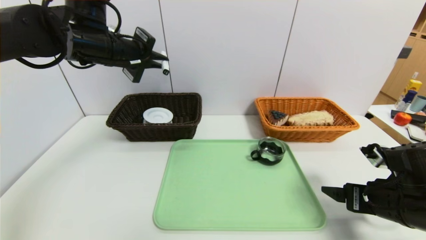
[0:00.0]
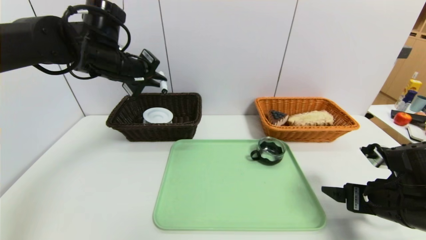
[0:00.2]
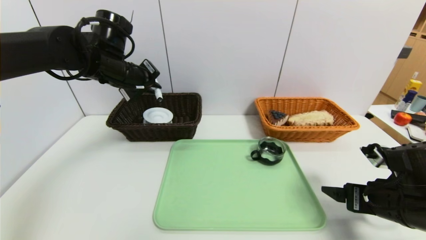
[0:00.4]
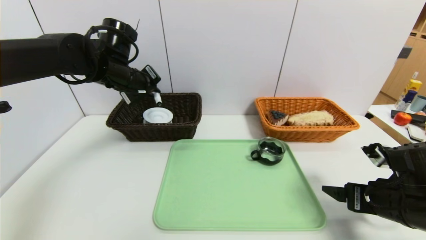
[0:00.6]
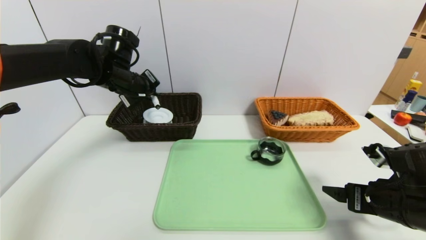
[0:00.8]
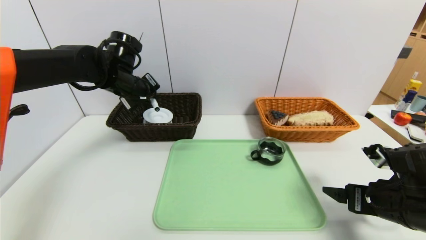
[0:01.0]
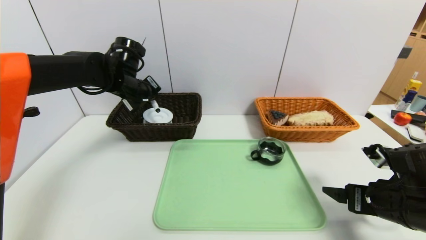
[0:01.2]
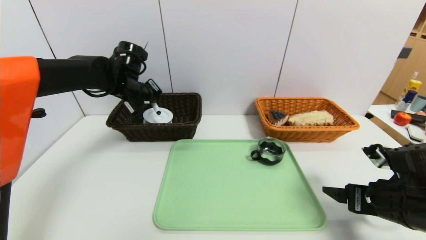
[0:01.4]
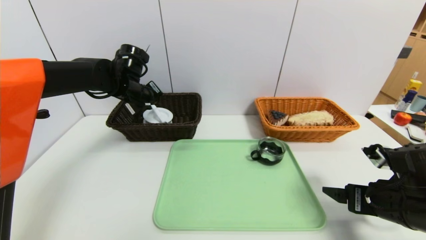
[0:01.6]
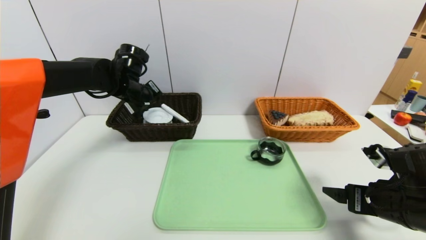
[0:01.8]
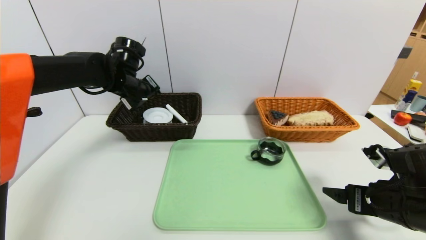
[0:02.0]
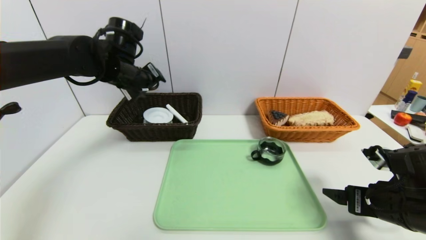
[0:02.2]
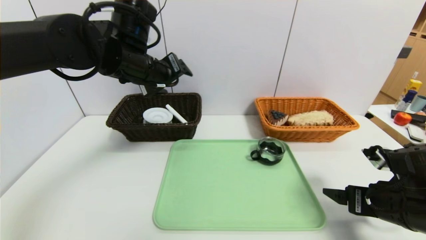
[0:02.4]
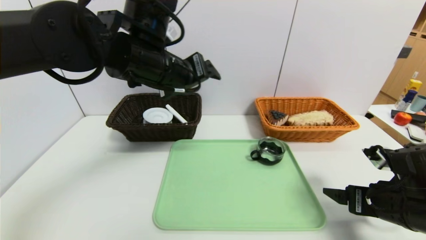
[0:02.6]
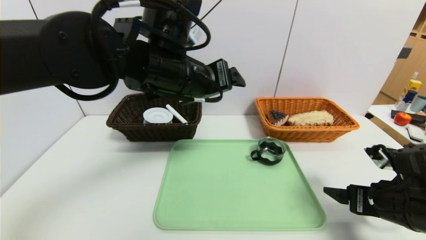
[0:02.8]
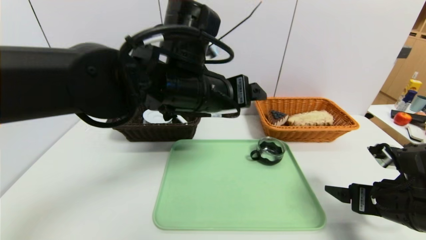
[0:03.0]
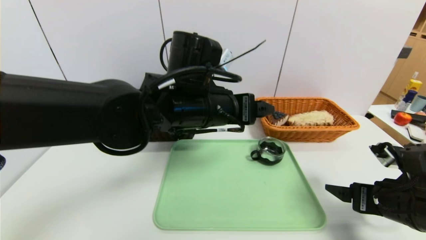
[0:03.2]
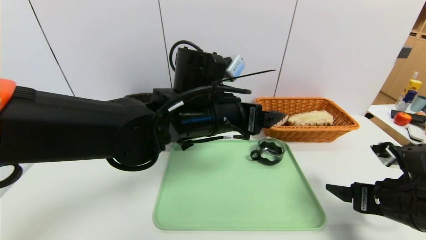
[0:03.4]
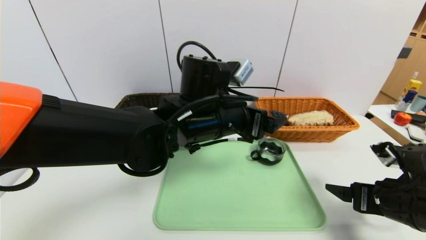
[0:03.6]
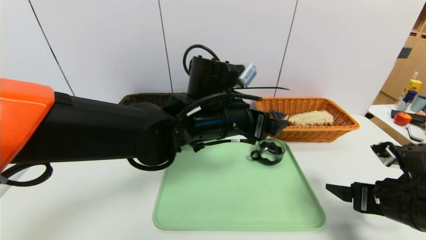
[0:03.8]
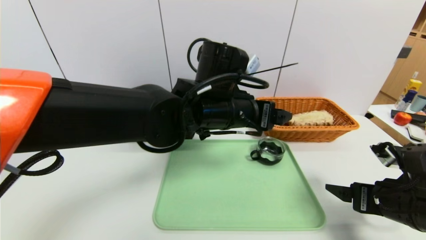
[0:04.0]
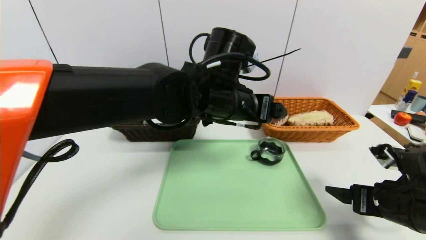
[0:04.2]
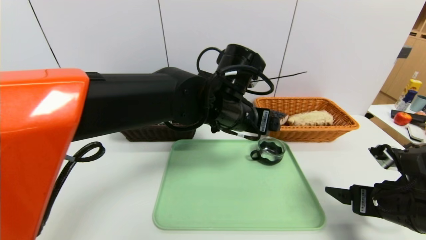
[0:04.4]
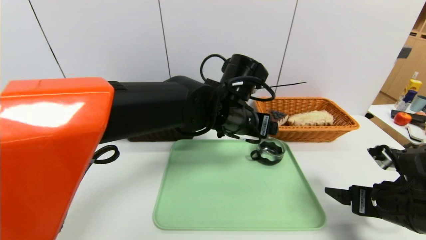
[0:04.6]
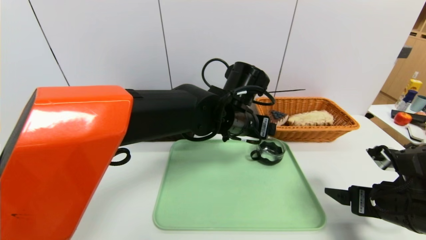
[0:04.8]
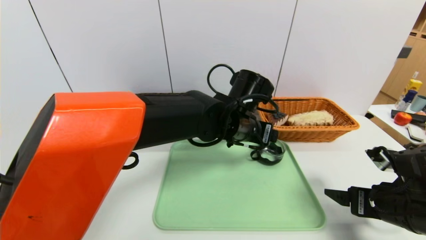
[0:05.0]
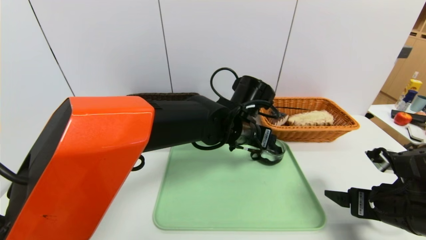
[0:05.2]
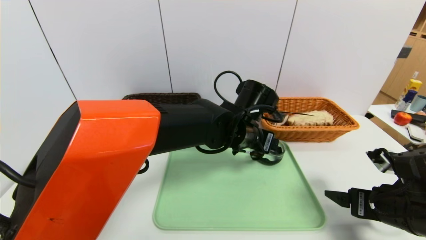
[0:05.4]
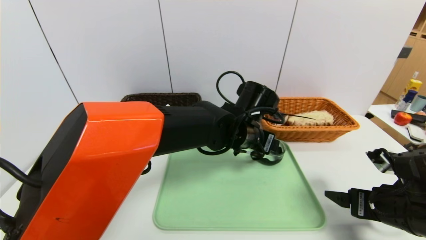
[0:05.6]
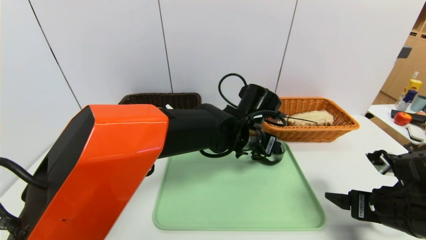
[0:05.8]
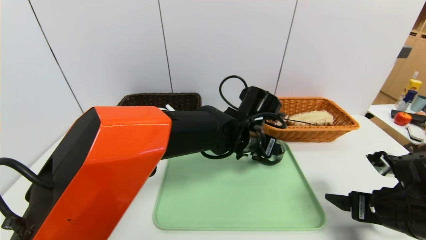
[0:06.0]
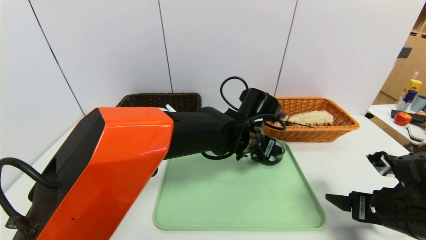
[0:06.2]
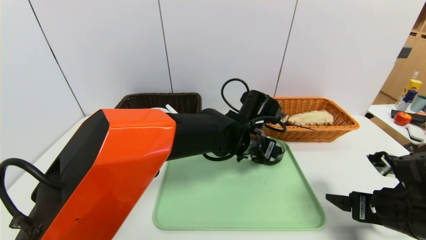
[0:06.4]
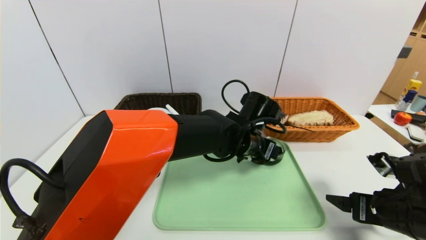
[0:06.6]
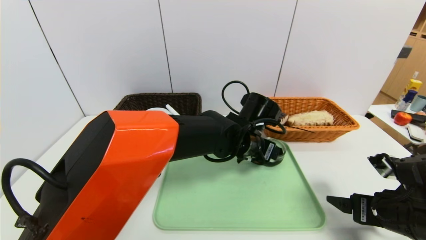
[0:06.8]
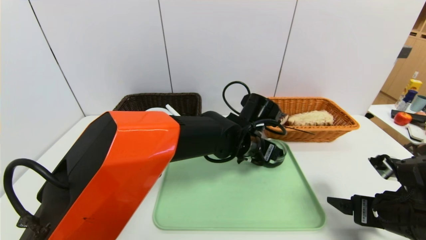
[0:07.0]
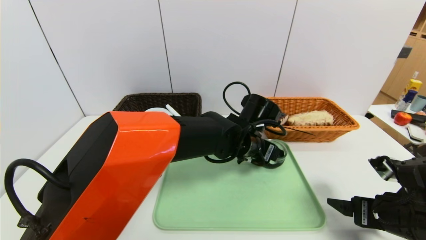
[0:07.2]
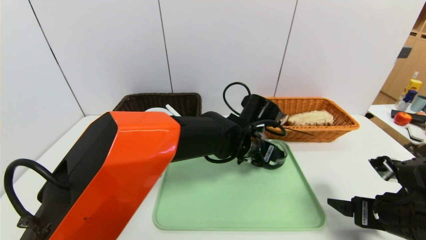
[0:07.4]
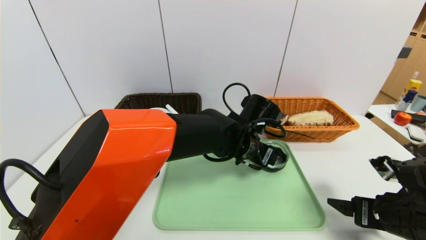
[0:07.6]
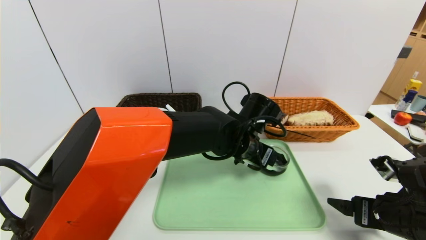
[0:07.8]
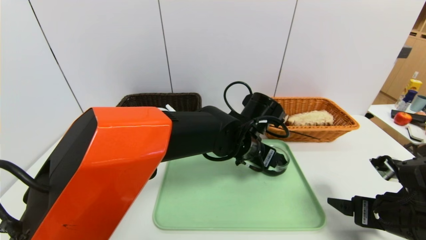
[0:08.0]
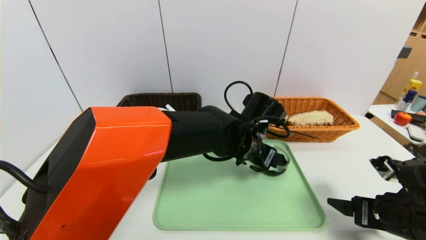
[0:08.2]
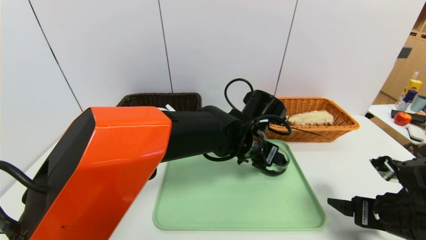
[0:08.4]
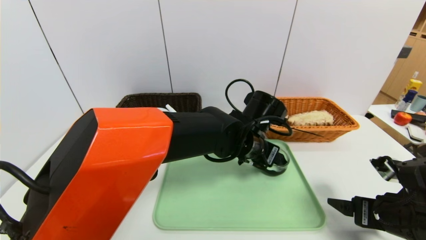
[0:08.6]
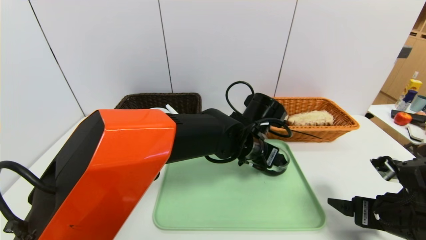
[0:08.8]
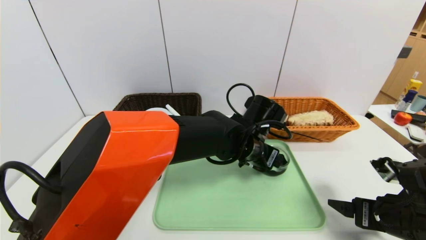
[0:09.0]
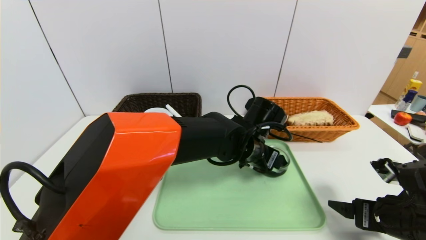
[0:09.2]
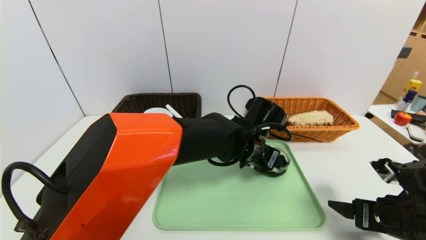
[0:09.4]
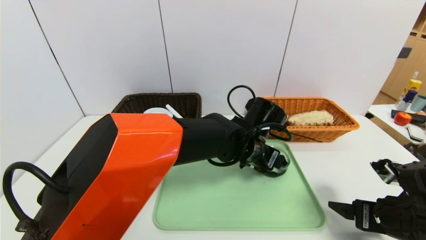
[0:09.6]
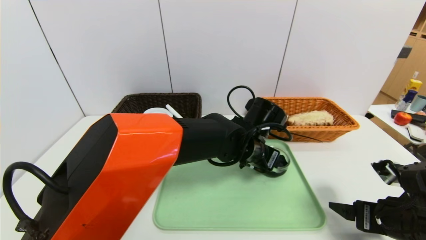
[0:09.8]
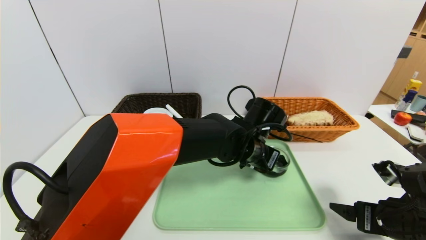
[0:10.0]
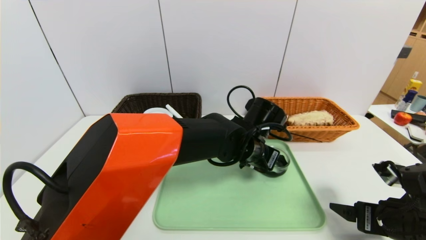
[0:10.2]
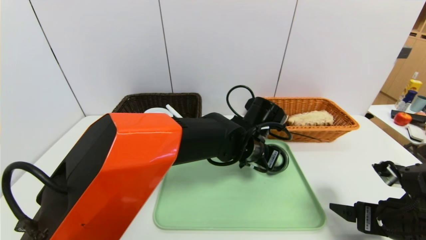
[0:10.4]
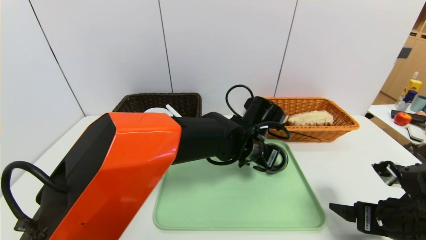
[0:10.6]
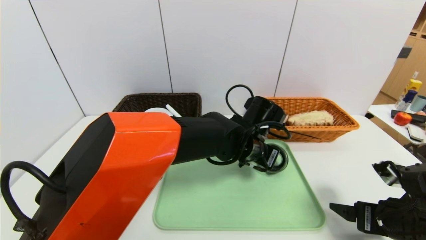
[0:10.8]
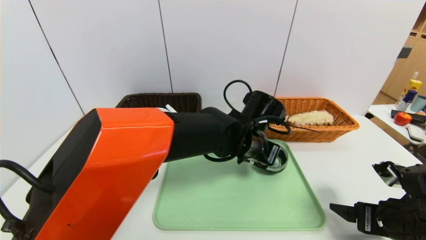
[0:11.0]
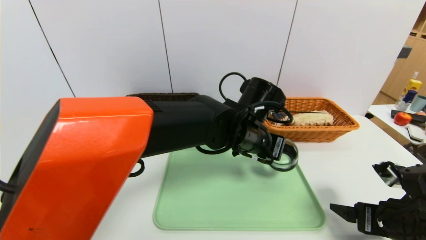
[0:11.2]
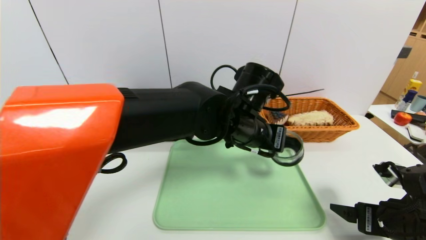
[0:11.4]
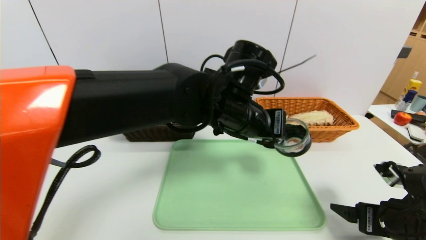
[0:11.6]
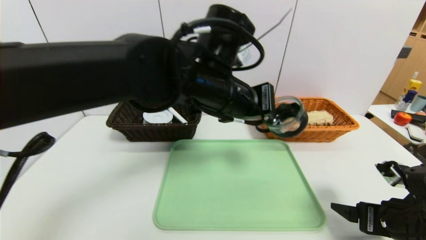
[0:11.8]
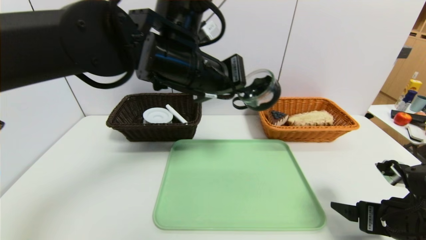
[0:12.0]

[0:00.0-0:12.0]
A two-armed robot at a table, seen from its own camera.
Task of the whole recording: place the food in the right basket with the right gripper, and place the non food items in the left basket with the left gripper.
Step, 0:00.0 to 0:02.4: Grasp the blue marker and put it in the left basket.
0:00.0 to 0:01.6: The left gripper heads downward and forward, covering some 10 cm.
0:01.6 to 0:03.0: The left gripper travels to the right and backward by approximately 25 cm, and opens.
0:03.0 to 0:04.4: The left gripper goes roughly 5 cm to the right.
0:04.4 to 0:06.0: The left gripper is displaced downward by some 5 cm.
0:06.0 to 0:07.6: The grippers move only a little.
0:07.6 to 0:09.0: Neither gripper changes place.
0:09.0 to 0:10.4: The left gripper closes.
0:10.4 to 0:12.0: The left gripper goes some 20 cm upward and to the left.

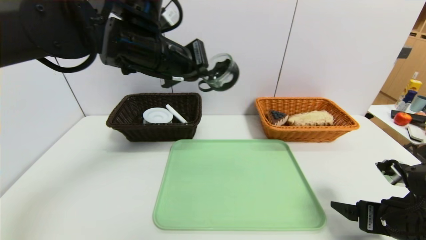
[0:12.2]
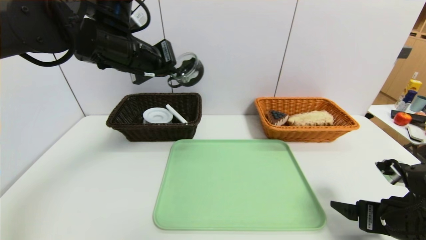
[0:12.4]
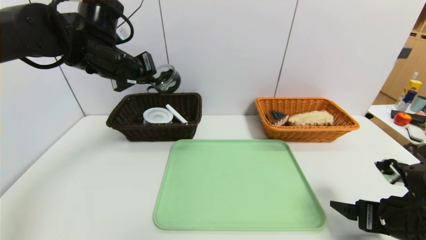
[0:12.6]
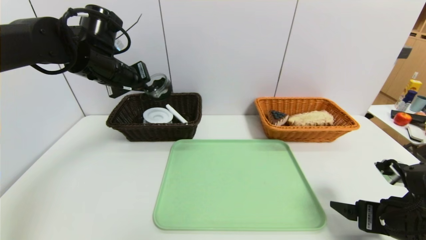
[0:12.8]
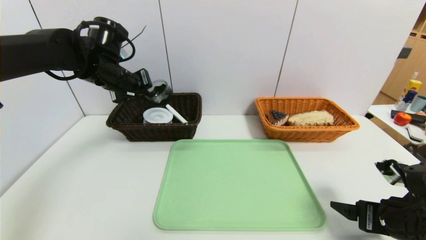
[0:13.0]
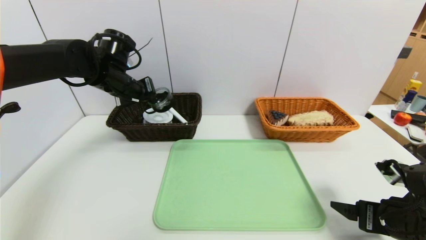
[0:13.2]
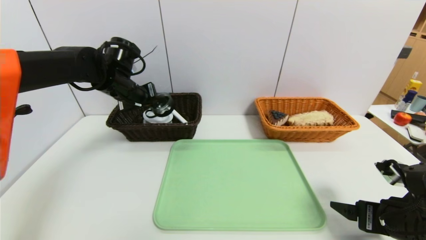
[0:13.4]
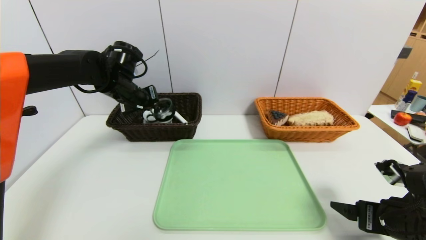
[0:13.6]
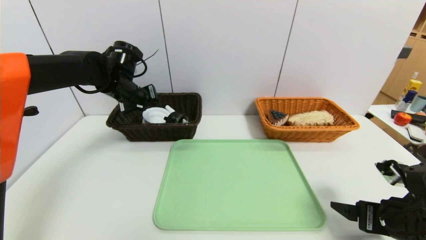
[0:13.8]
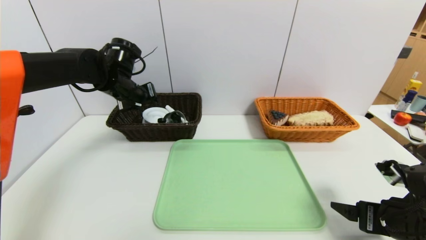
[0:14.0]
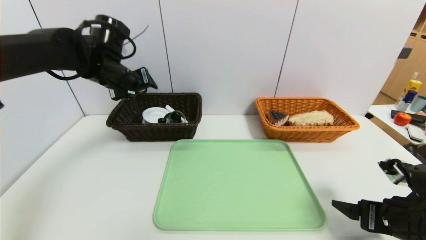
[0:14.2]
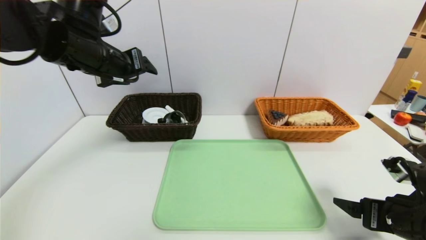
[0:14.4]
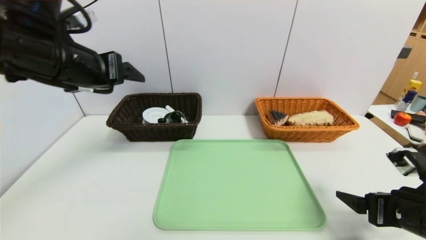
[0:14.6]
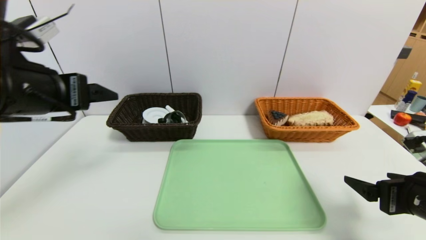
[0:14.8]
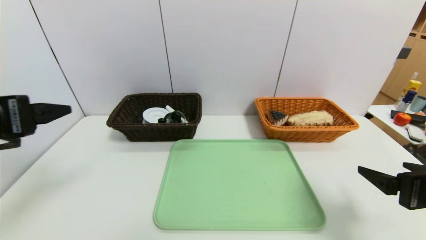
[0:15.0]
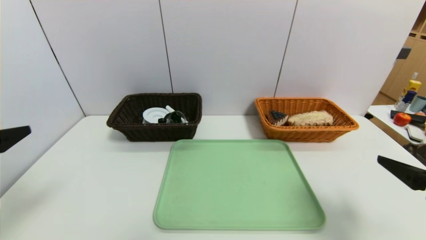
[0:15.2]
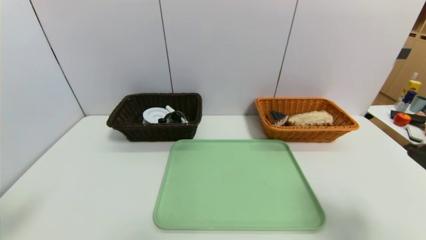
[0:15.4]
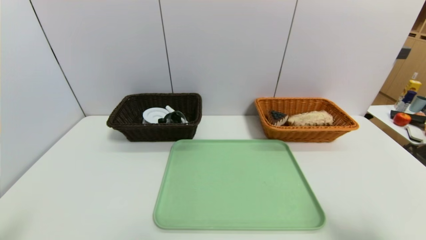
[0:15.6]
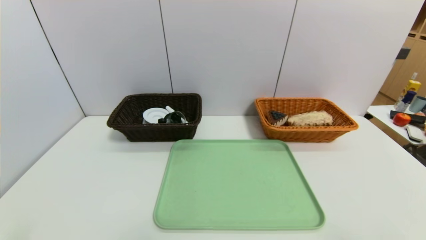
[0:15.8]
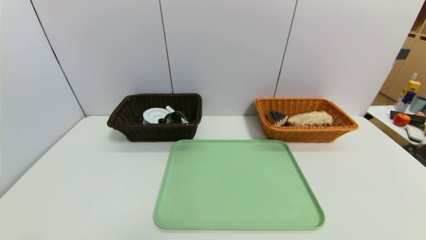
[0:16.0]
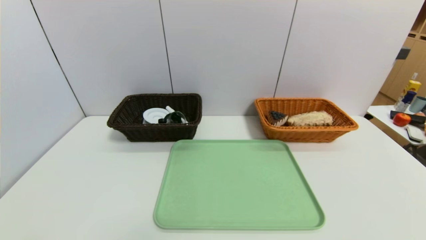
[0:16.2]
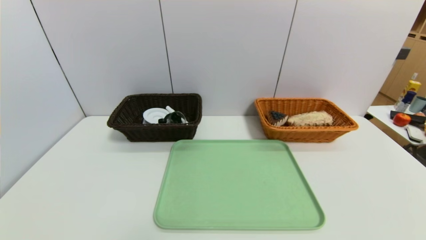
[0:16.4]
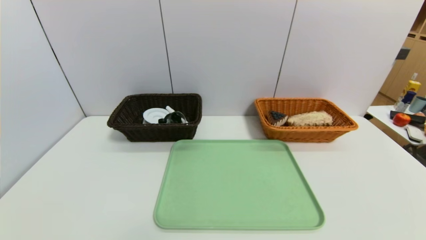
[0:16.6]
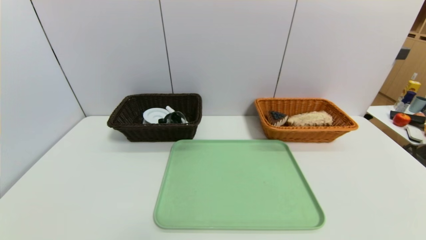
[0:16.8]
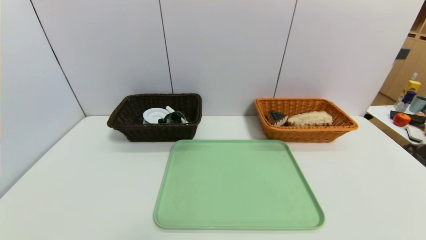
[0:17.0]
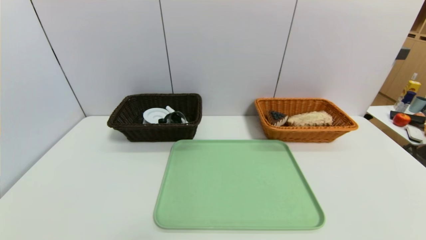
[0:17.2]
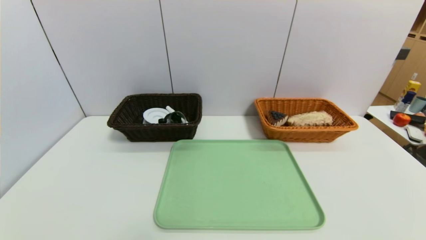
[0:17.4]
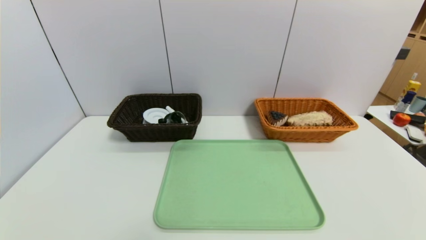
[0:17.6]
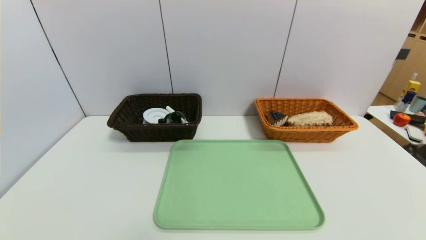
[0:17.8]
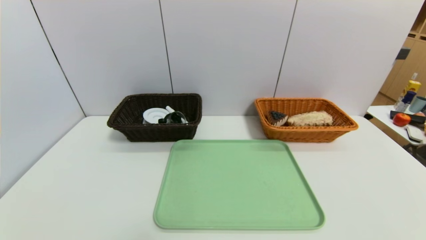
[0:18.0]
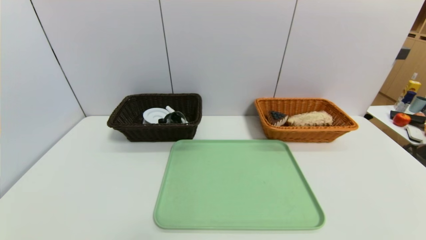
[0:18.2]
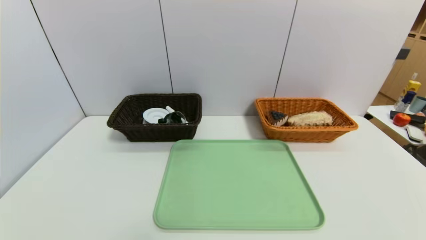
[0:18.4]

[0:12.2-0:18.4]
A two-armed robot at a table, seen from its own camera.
Task of the whole recording: place the food in the right basket with the right gripper, and place the non food items in the left basket with the left gripper.
Step, 0:12.2 to 0:14.6: Grasp the tea cup and put it in the left basket.
0:12.2 to 0:13.8: The left gripper moves forward, to the left and downward, about 20 cm, and opens its fingers.
0:13.8 to 0:15.4: The left gripper travels backward by some 35 cm, and opens its fingers. The right gripper heads upward and backward, covering some 15 cm.
0:15.4 to 0:16.8: The left gripper shifts roughly 15 cm downward and backward, while the right gripper goes approximately 15 cm backward and downward.
